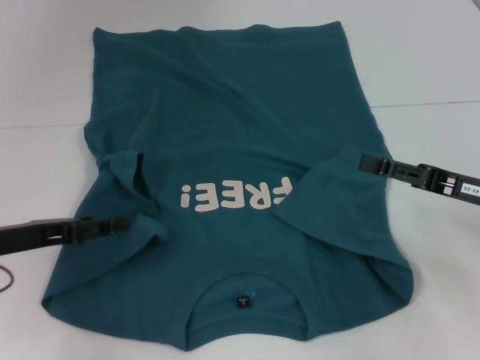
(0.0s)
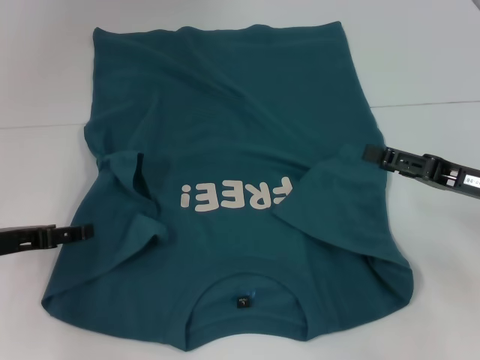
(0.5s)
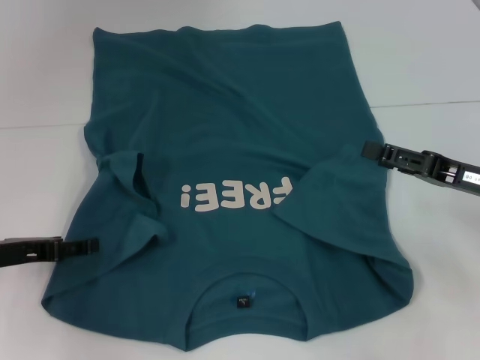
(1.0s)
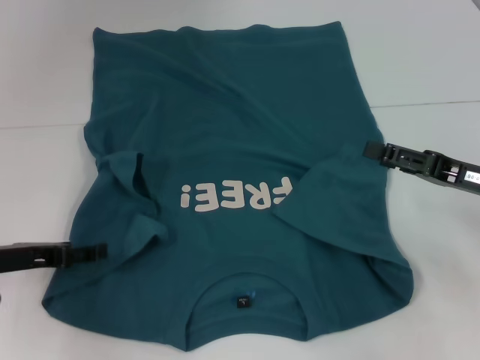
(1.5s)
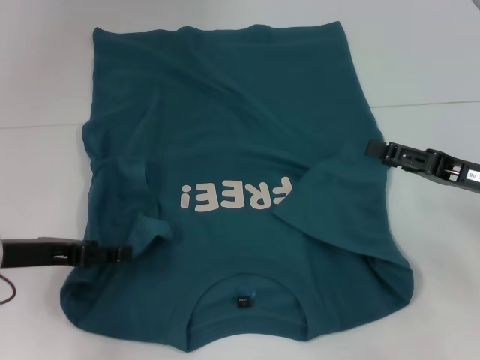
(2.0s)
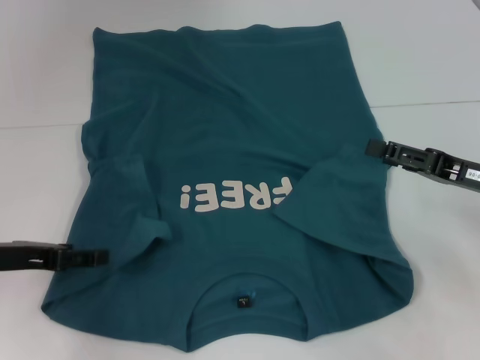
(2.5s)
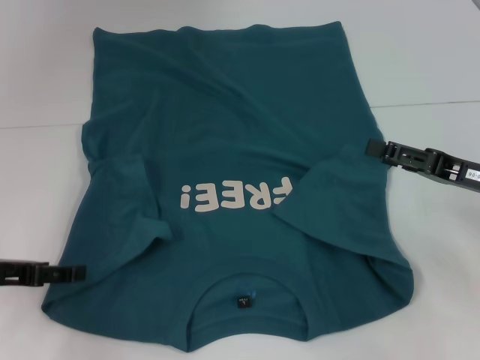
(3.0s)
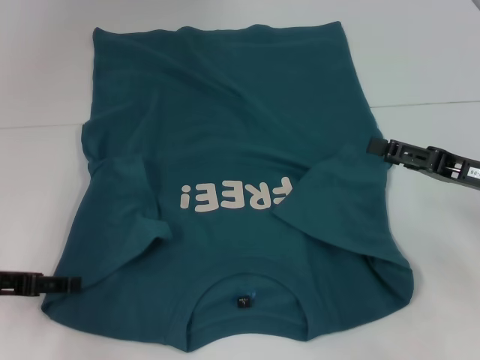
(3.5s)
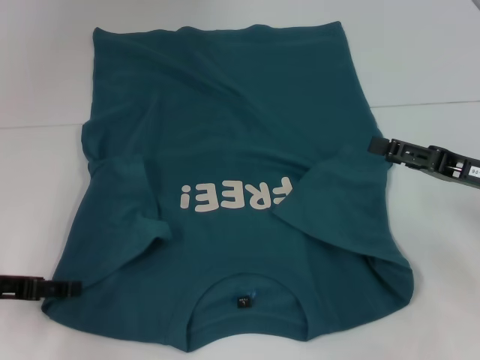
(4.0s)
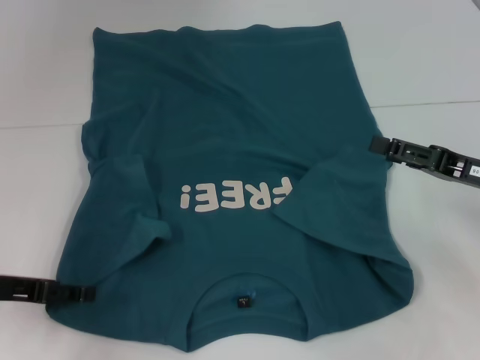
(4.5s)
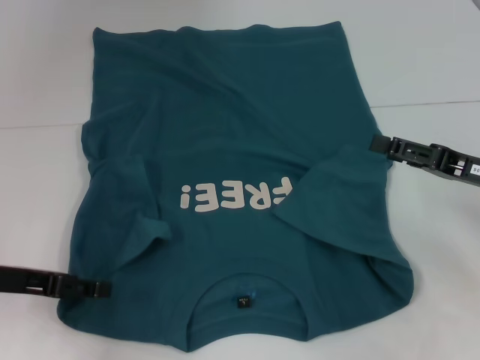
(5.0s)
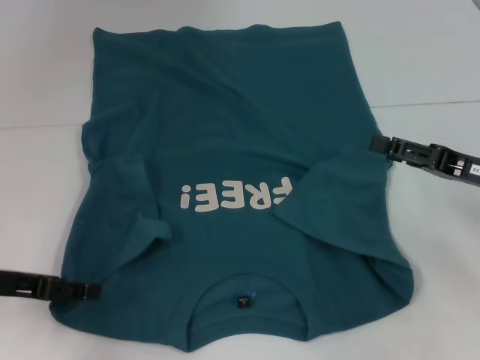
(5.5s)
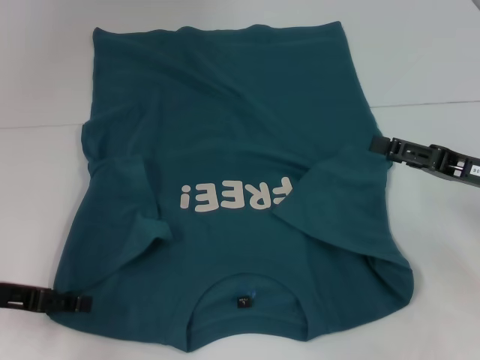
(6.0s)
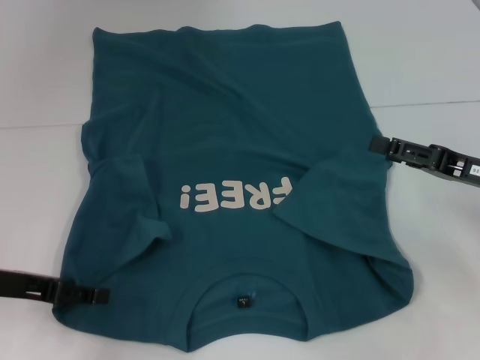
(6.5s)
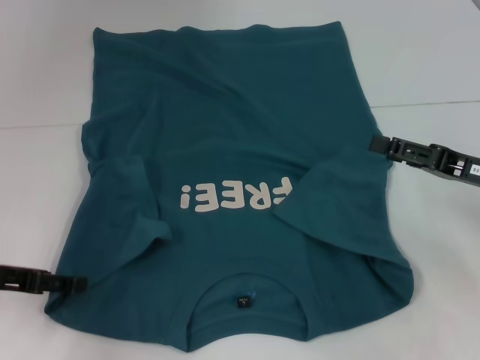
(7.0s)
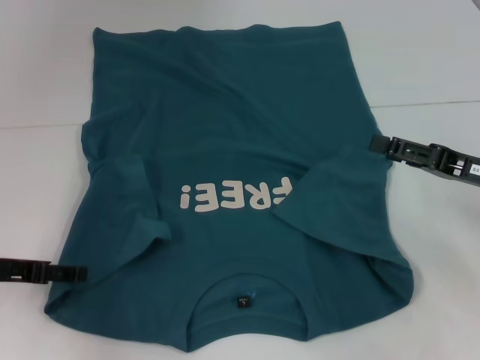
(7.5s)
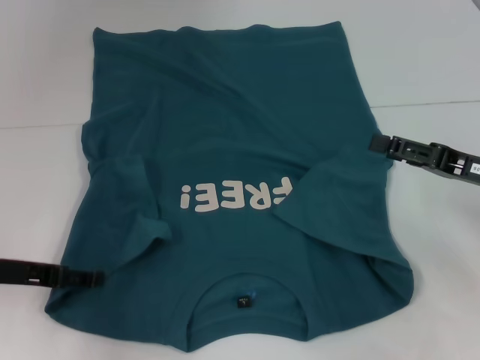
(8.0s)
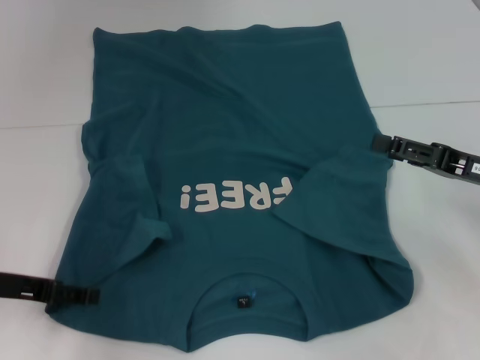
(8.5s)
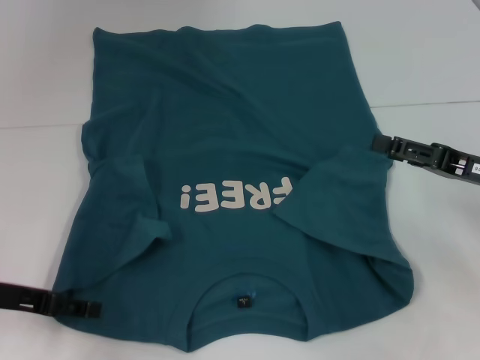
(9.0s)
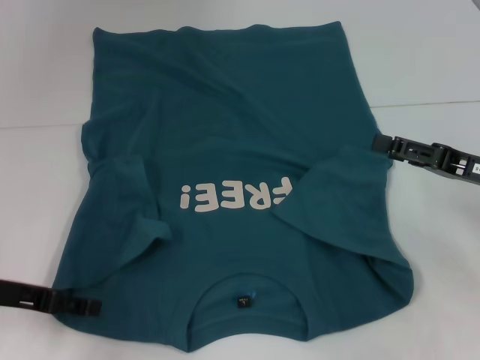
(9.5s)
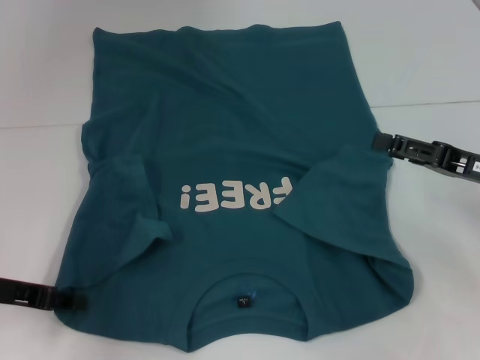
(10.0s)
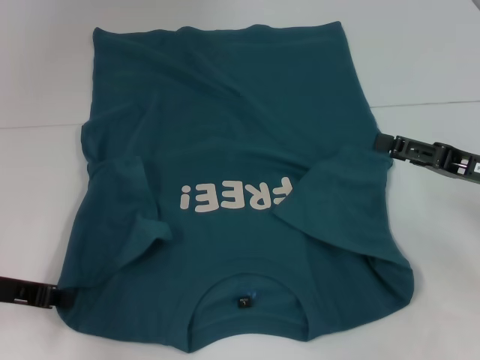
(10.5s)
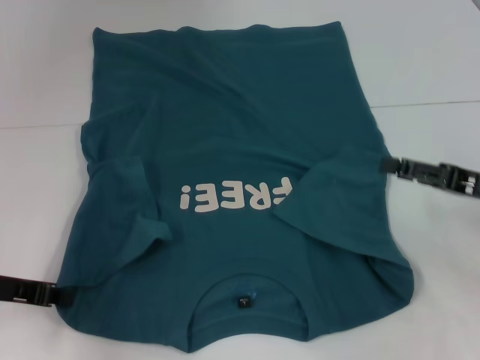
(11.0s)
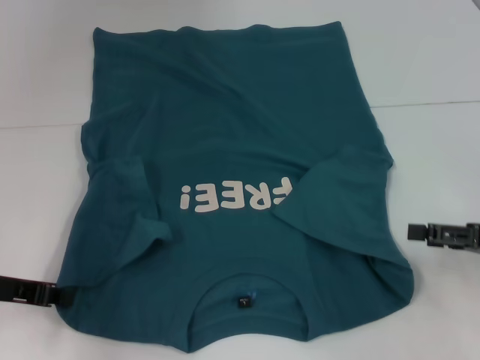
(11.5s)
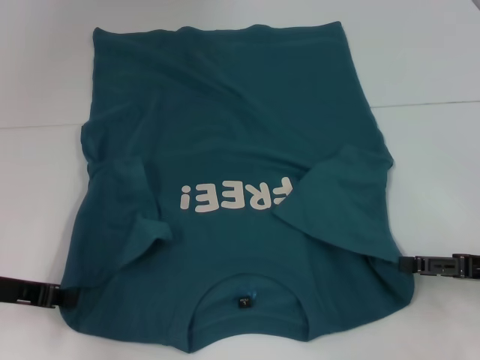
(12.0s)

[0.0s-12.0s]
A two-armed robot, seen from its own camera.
Step, 0.0s to 10.5s: Grab the bottom left corner with your left hand.
0.0s to 4.0s: The grippers make only small movements.
4.0s to 10.0s: The grippers stay close to where they were, moving slightly.
10.0s to 12.0s: The right gripper shifts about 5 cm backward. Meanwhile the left gripper closes up.

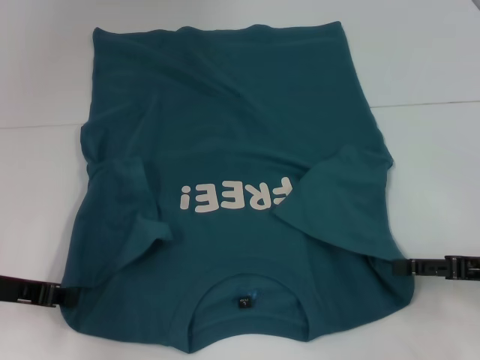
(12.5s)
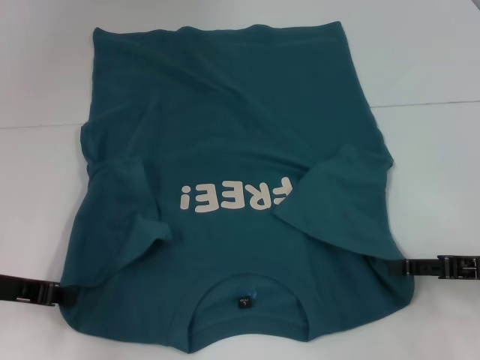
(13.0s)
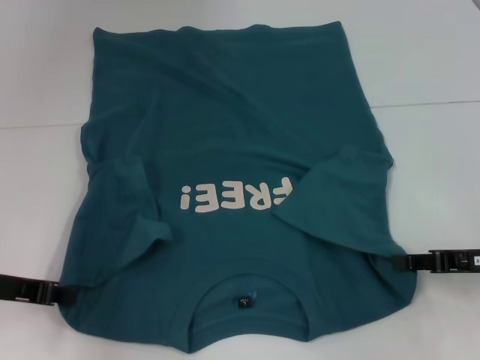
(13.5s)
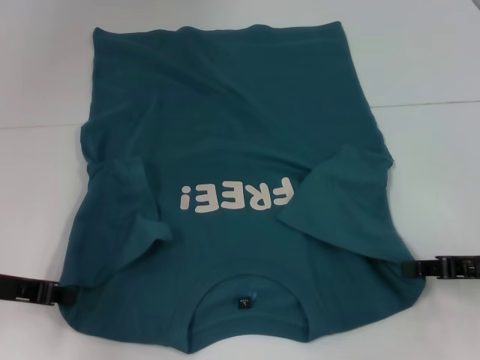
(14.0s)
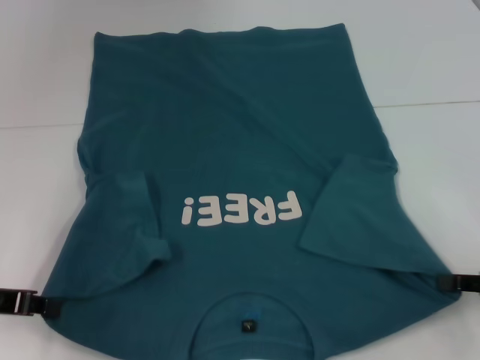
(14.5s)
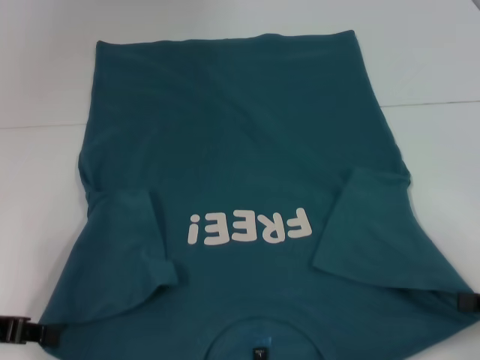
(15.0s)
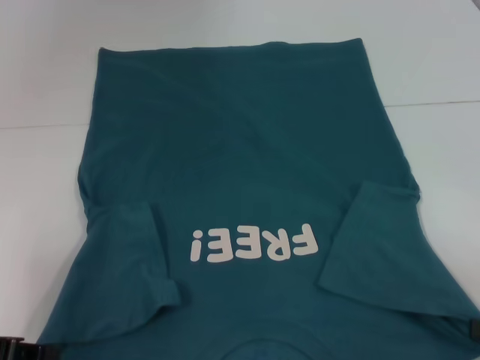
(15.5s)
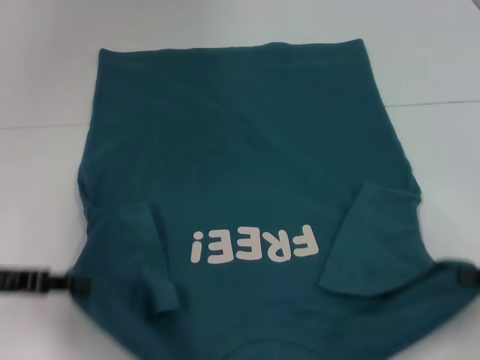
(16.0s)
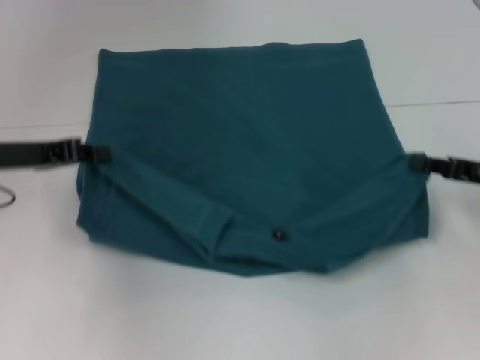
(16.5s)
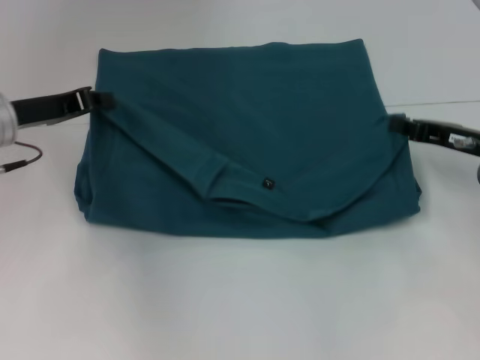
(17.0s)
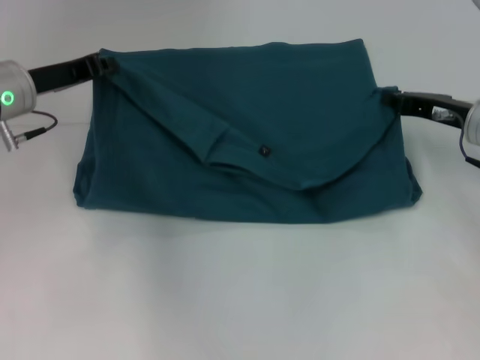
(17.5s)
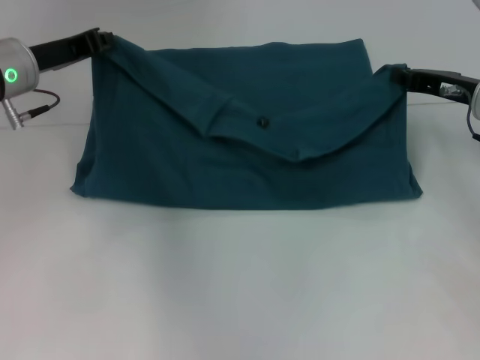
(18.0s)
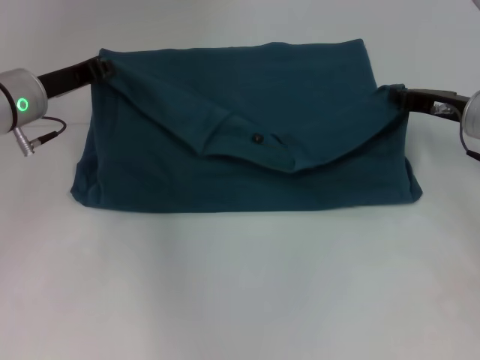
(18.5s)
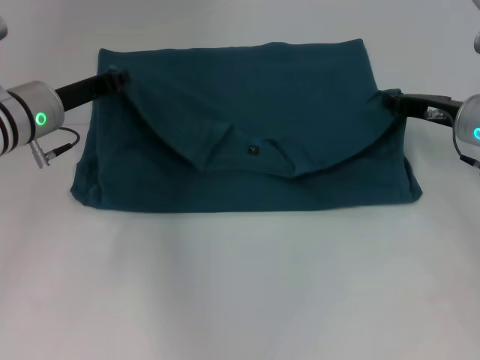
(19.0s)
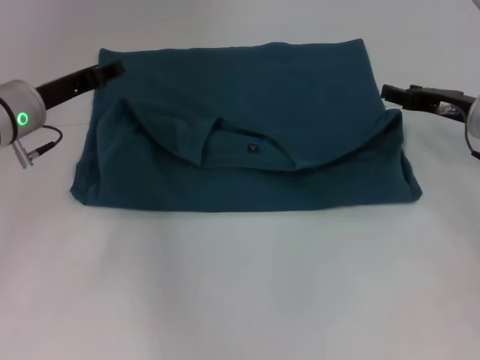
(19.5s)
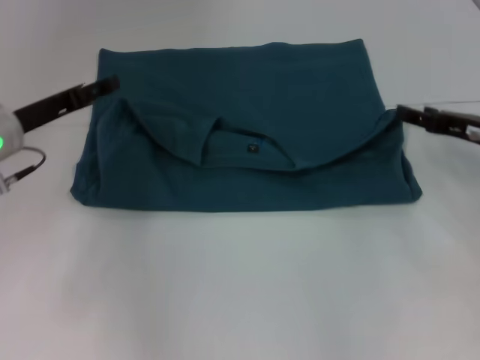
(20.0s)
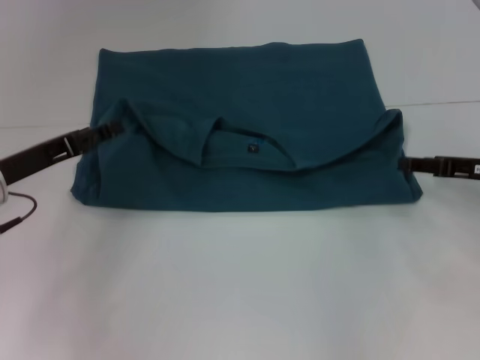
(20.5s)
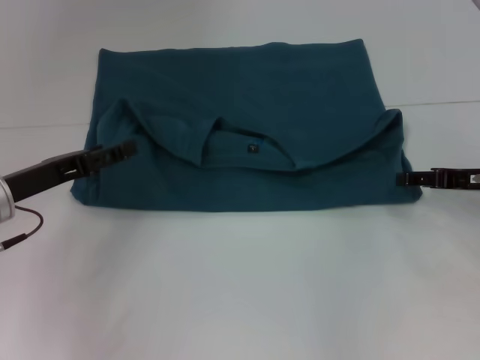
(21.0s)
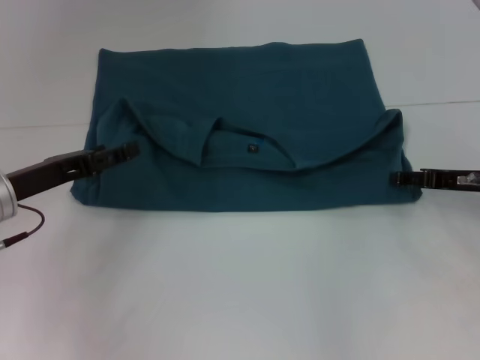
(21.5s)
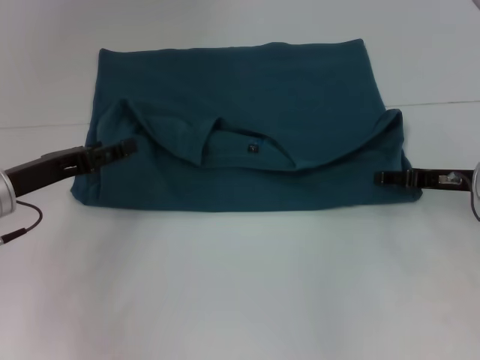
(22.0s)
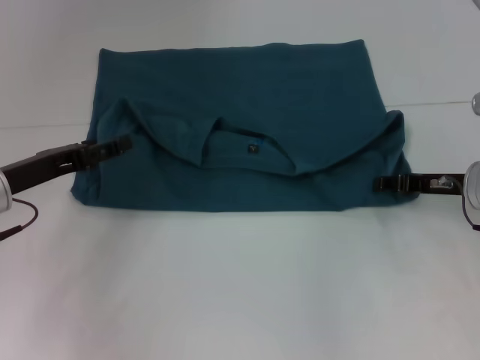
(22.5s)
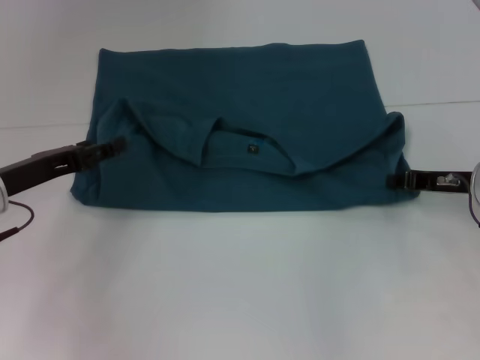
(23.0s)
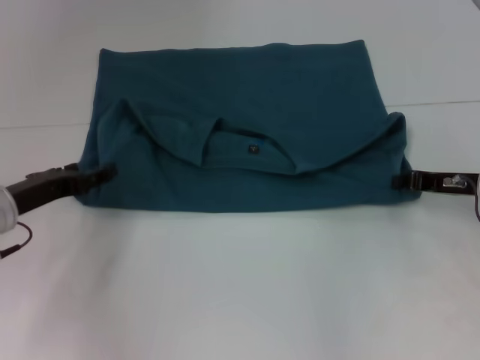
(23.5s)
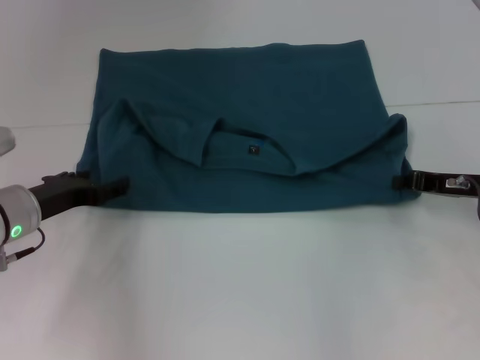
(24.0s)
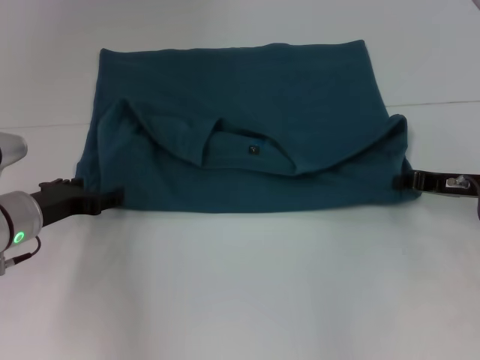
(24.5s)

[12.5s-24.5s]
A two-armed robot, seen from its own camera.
Step, 12.5s to 14.5s: Grab the bottom right corner with your right hand.
Step, 15.0s to 20.0s: Fold the clothes to the left.
Step, 15.0s to 20.0s: Fold the clothes to the right.
12.5s to 14.5s: The right gripper closes.
14.5s to 16.5s: Both grippers move forward, roughly 10 cm.
16.5s to 18.5s: The two grippers go roughly 10 cm forward.
18.5s to 20.5s: The two grippers go roughly 5 cm backward. The right gripper opens its fingers, while the left gripper opens.
20.5s to 22.5s: The right gripper ends up approximately 5 cm from where it was.
22.5s to 24.5s: The right gripper closes its fingers, while the left gripper ends up some 5 cm from where it was.

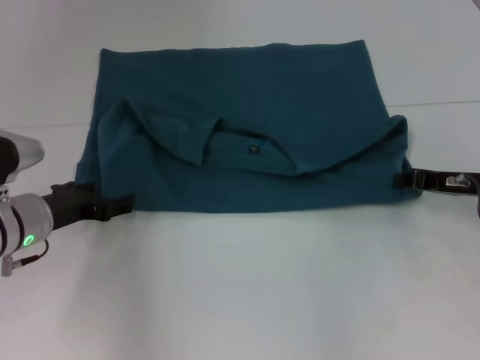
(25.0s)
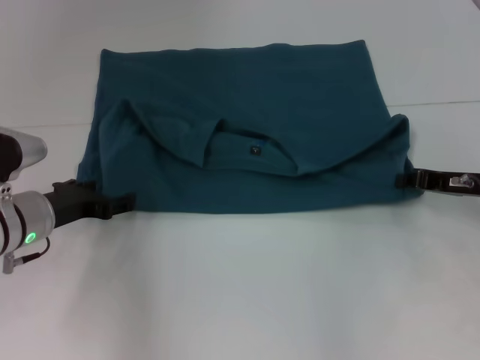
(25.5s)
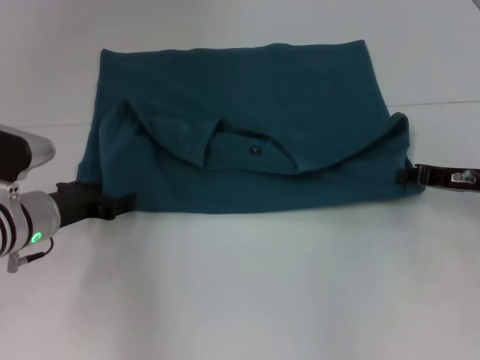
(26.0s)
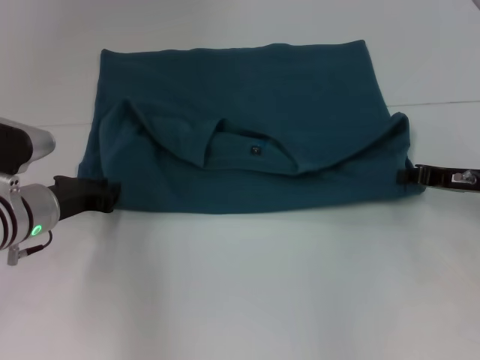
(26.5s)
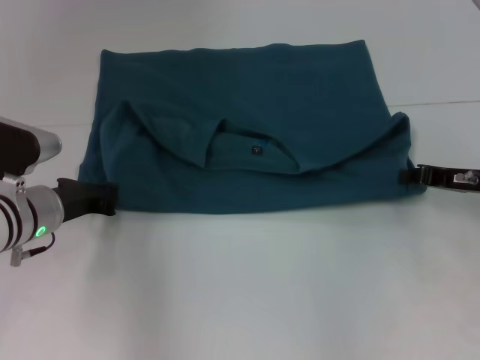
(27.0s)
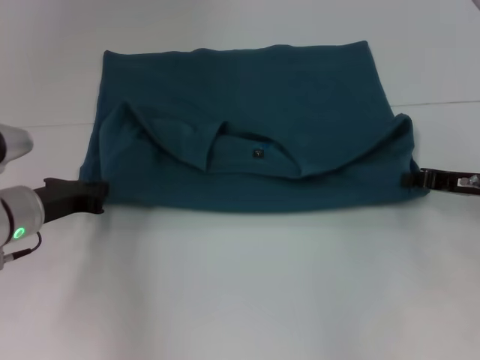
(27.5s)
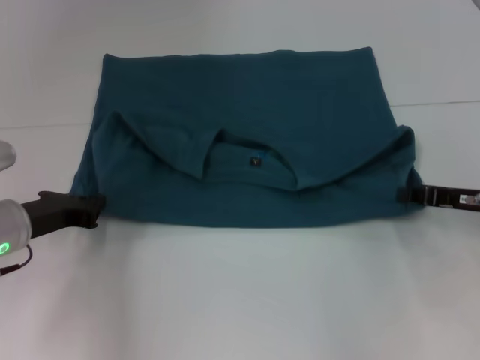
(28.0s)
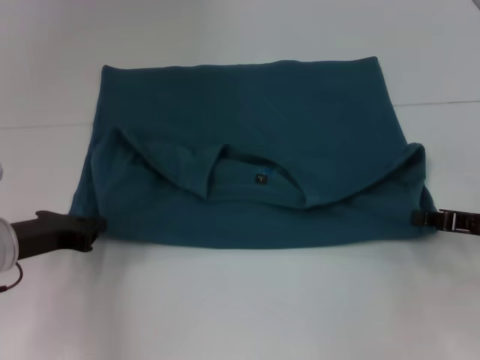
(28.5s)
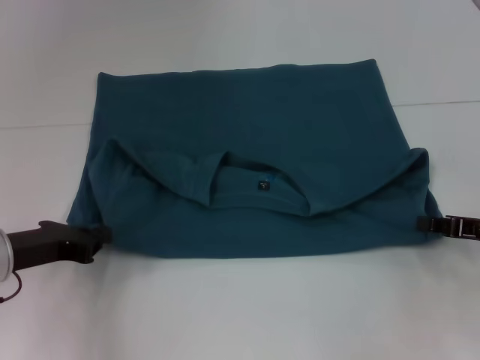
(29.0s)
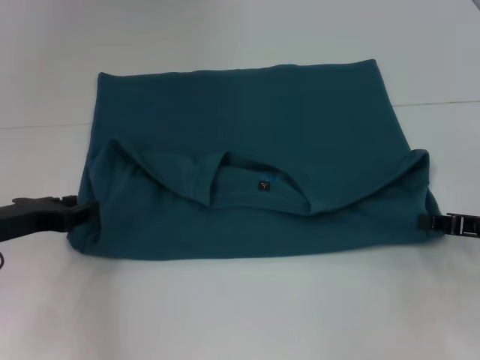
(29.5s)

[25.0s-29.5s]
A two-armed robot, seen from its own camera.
25.0s to 27.0s: The left gripper closes its fingers.
27.0s to 29.5s: The left gripper shifts approximately 5 cm to the left, while the right gripper travels backward by approximately 5 cm.
